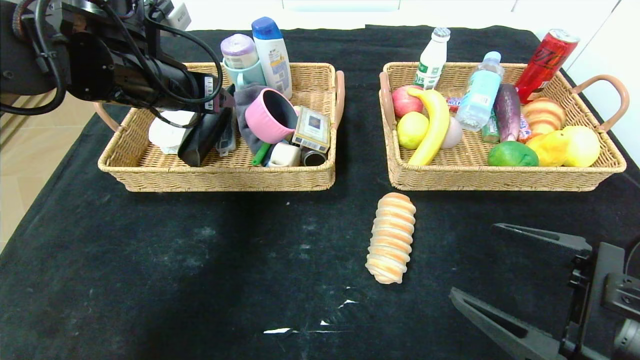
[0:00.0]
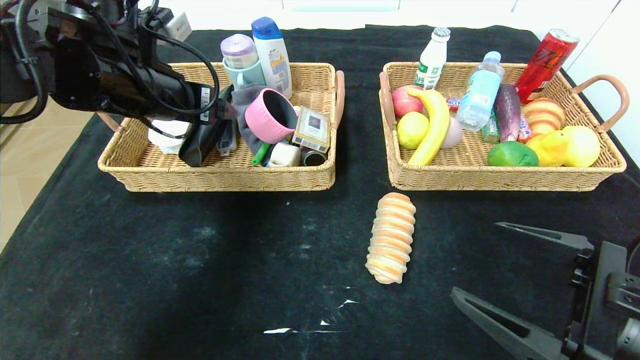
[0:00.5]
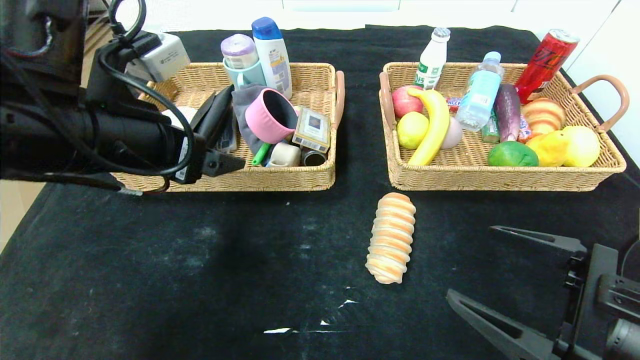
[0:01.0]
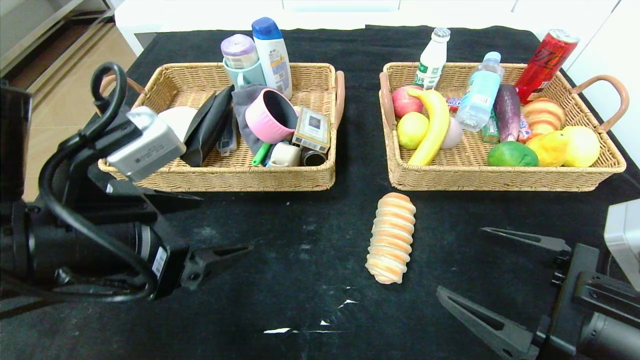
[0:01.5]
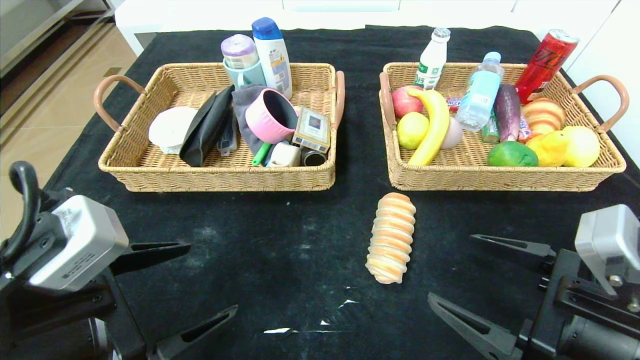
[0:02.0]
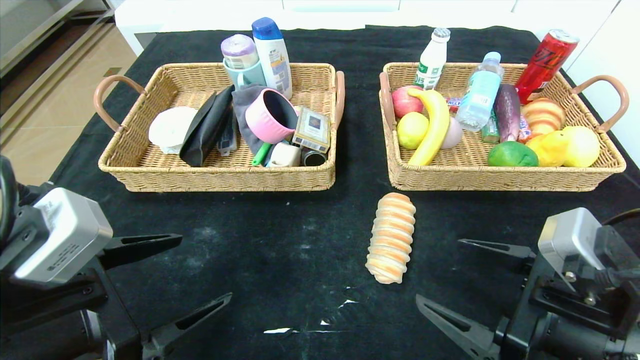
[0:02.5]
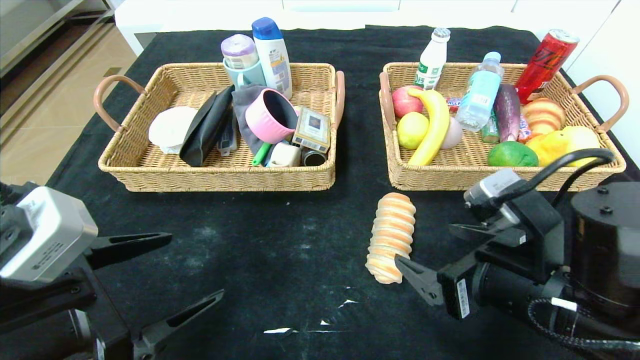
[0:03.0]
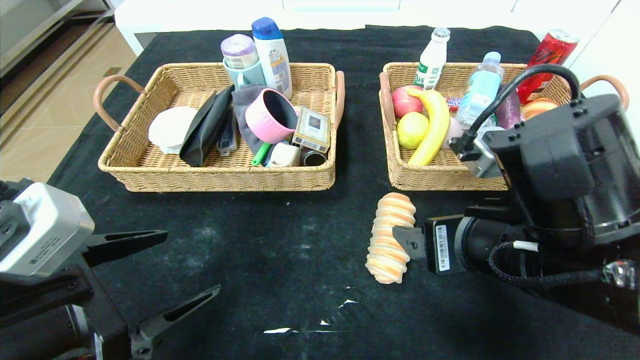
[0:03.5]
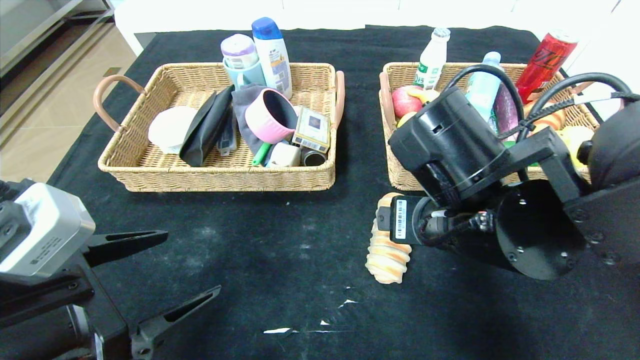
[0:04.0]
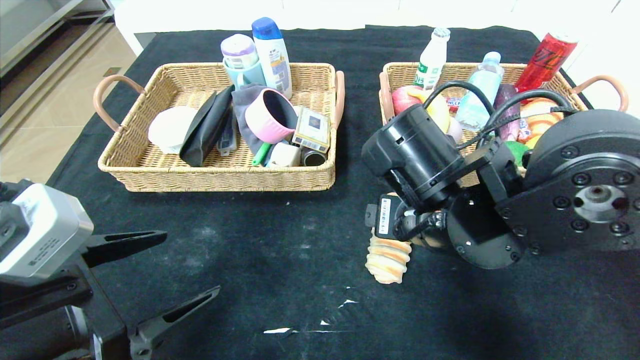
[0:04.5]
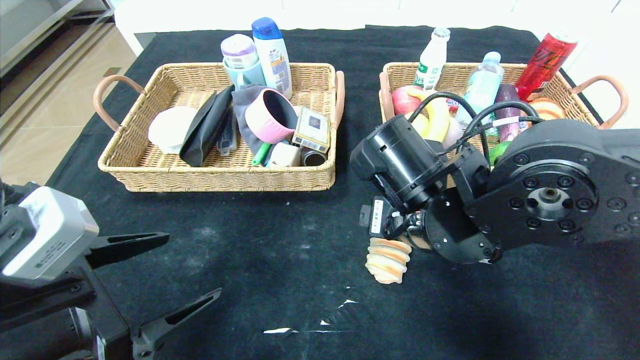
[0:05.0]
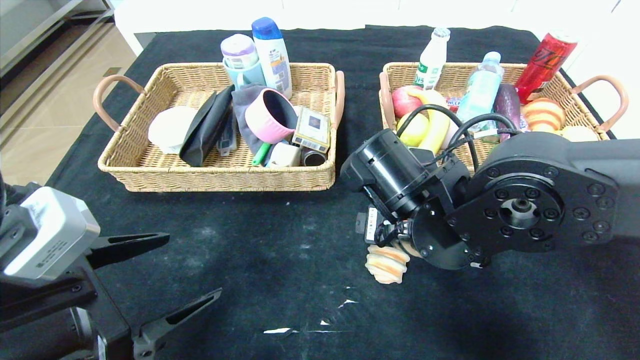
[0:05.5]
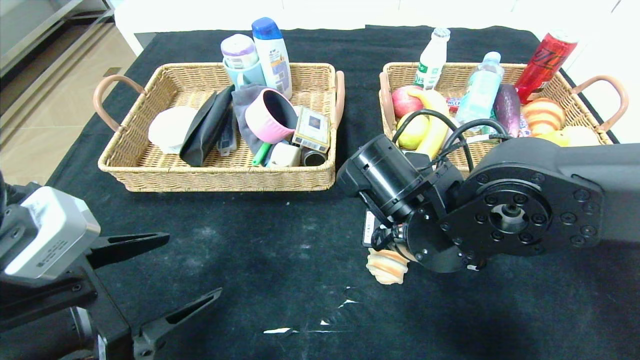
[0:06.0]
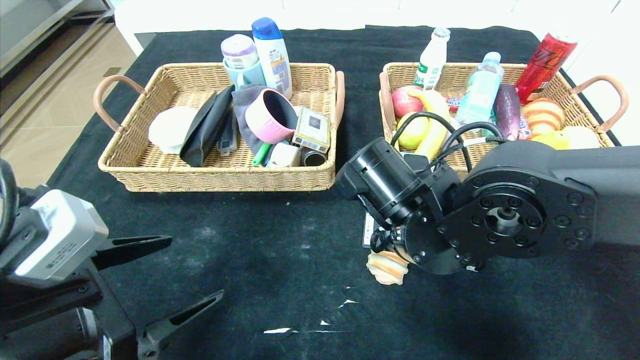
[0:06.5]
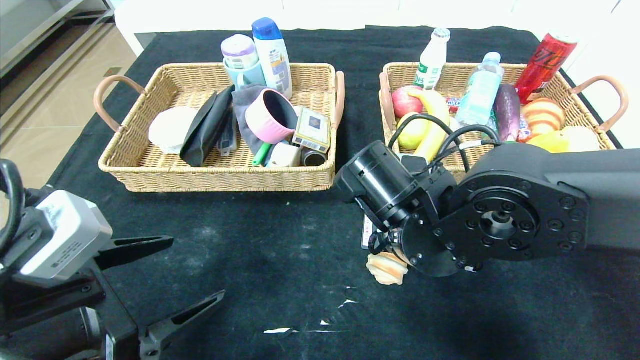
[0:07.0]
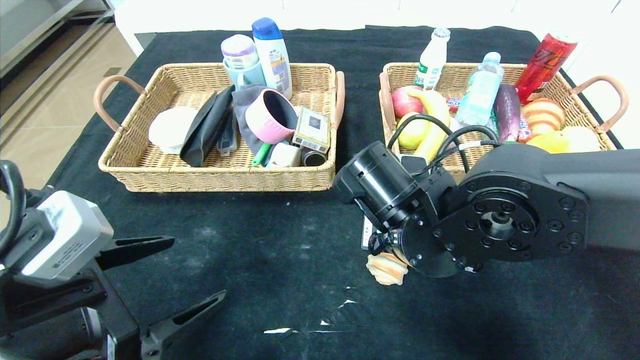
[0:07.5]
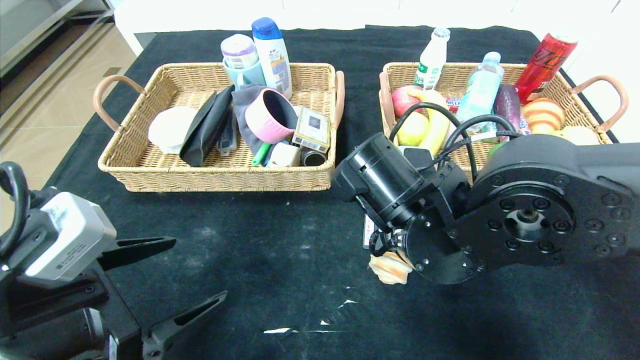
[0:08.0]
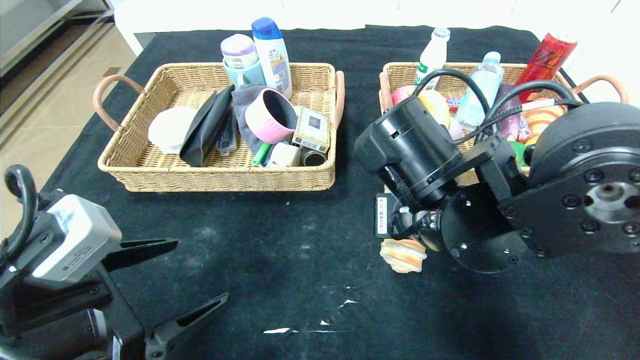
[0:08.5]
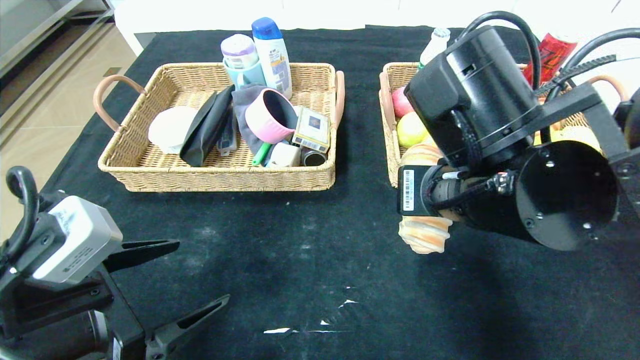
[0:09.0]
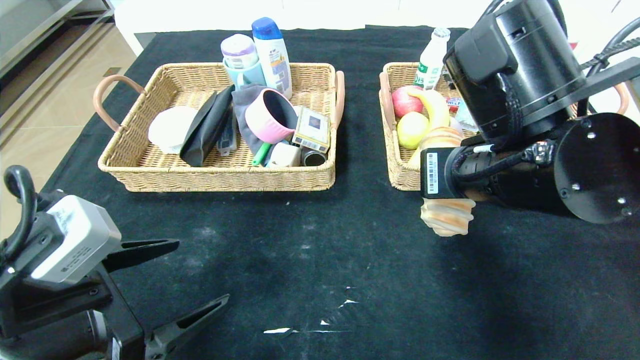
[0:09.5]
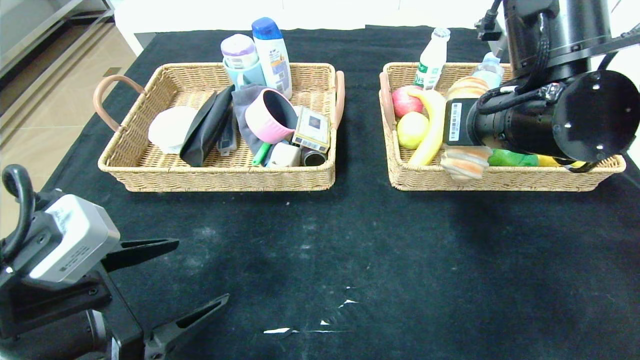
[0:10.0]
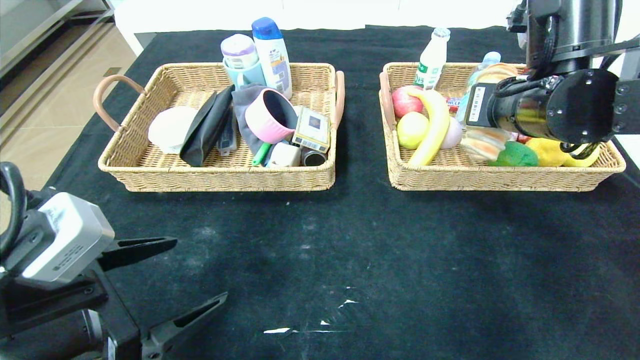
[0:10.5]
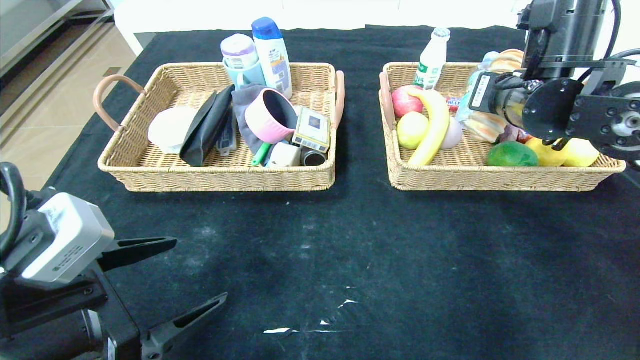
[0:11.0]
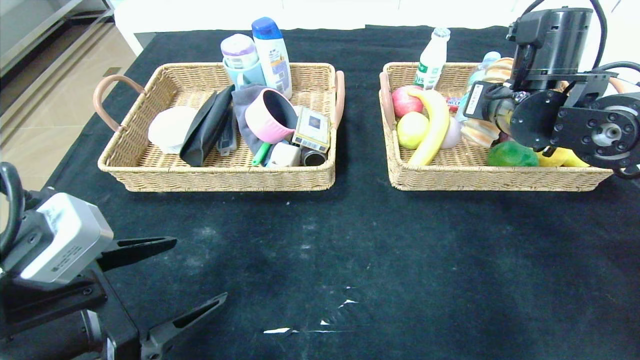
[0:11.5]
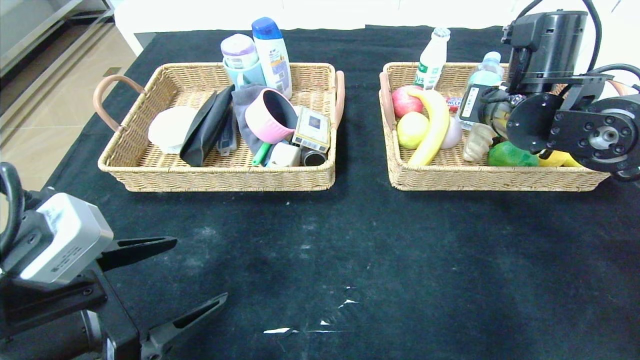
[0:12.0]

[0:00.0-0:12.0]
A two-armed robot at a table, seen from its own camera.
0:00.0 to 0:02.0: The left gripper goes approximately 25 cm backward and downward.
0:02.0 to 0:04.0: The right gripper heads to the left, forward and upward, covering approximately 15 cm.
0:04.0 to 0:06.0: The right gripper changes place by about 5 cm, and closes.
0:06.0 to 0:08.0: The right gripper closes.
0:08.0 to 0:10.0: The right gripper is displaced upward and to the right by roughly 15 cm.
0:10.0 to 0:12.0: The right gripper is displaced forward by approximately 10 cm, and opens.

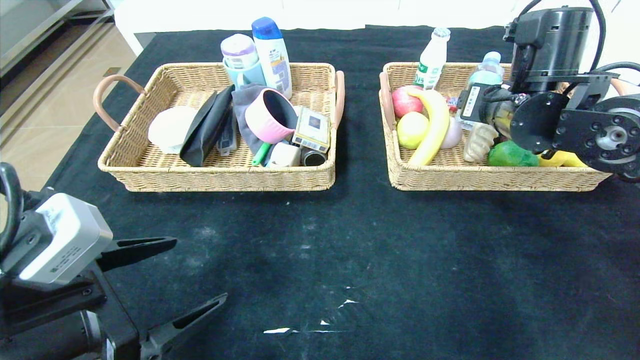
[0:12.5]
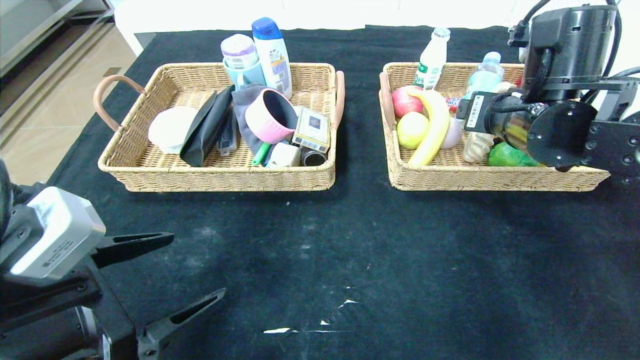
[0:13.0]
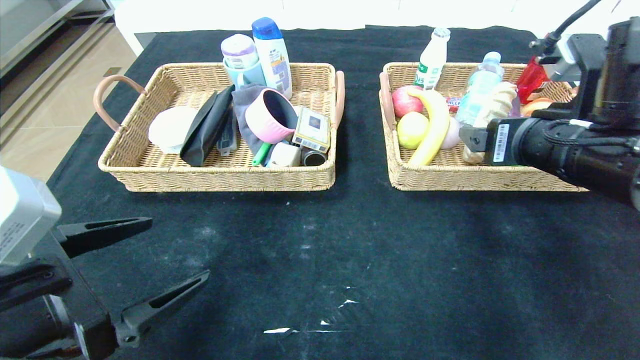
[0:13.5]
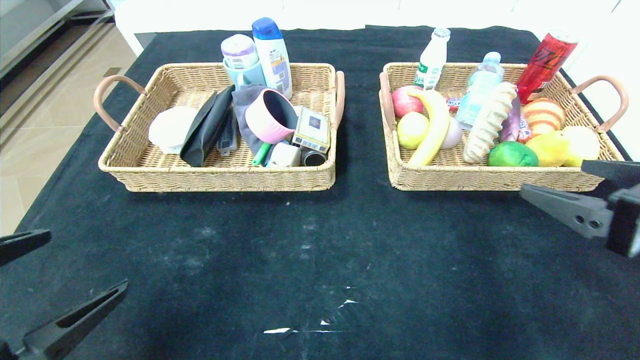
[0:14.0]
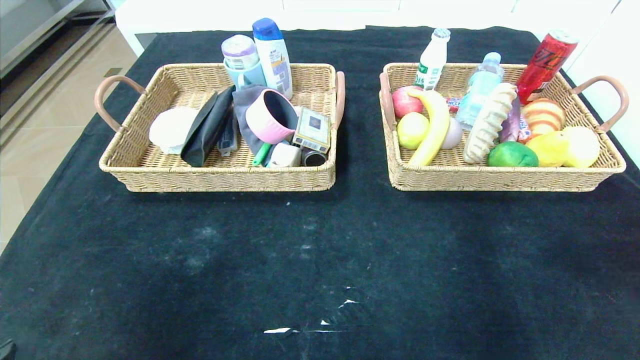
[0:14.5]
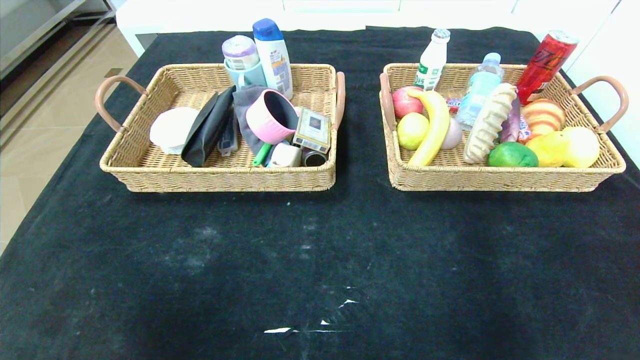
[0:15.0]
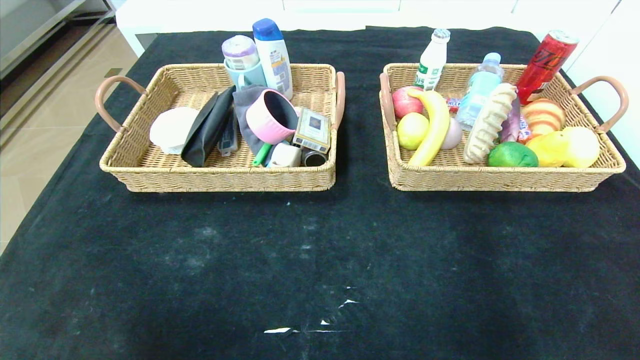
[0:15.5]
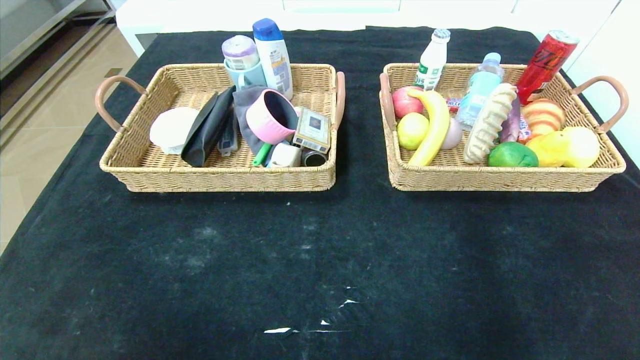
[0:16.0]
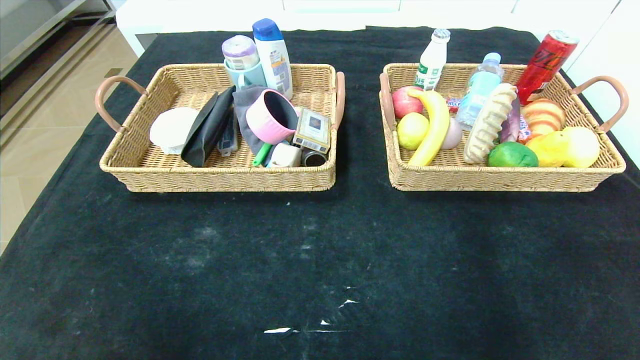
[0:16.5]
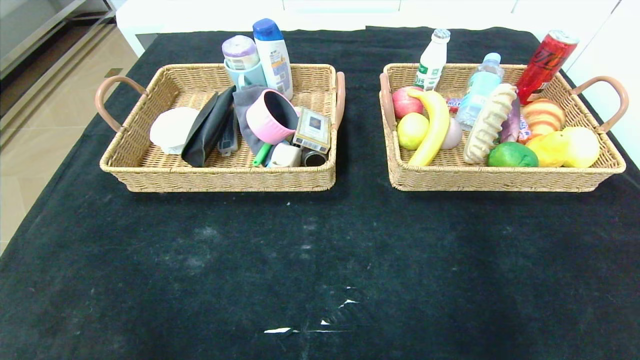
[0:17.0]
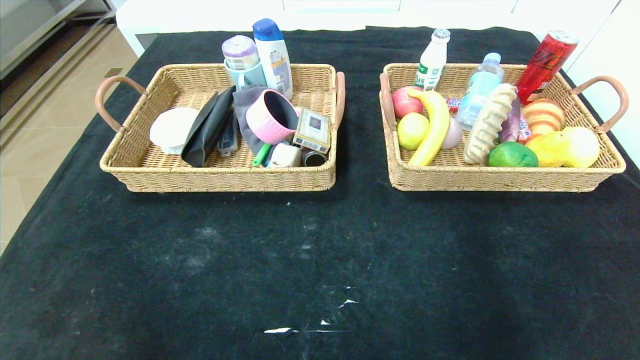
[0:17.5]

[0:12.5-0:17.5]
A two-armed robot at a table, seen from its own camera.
0:12.5 to 0:15.0: The left gripper is displaced backward by approximately 20 cm, while the right gripper goes roughly 35 cm backward.
